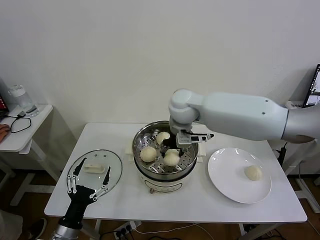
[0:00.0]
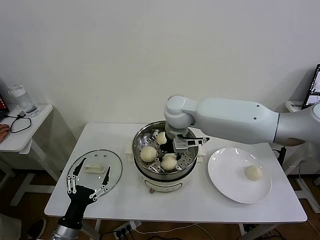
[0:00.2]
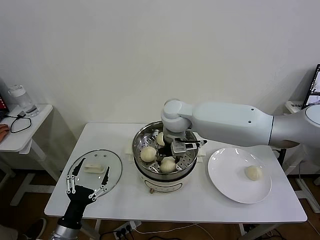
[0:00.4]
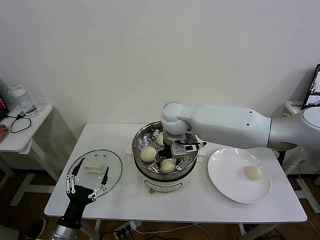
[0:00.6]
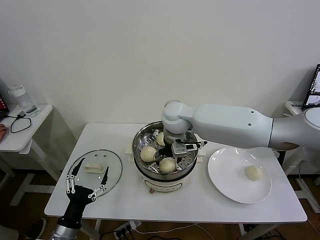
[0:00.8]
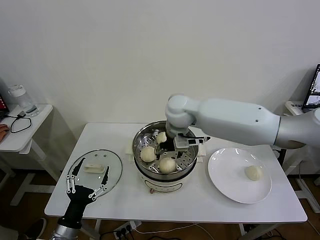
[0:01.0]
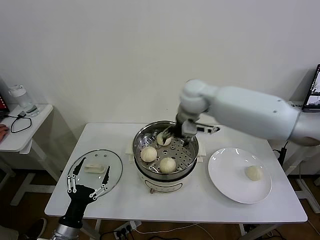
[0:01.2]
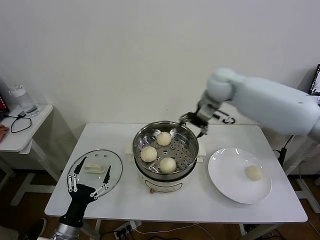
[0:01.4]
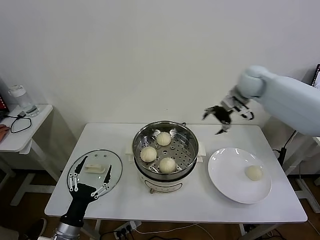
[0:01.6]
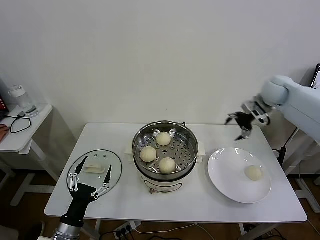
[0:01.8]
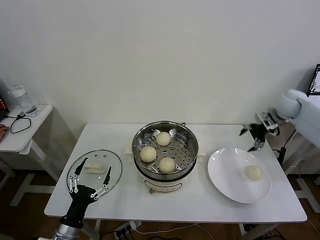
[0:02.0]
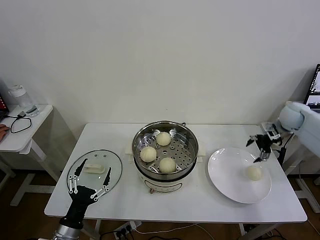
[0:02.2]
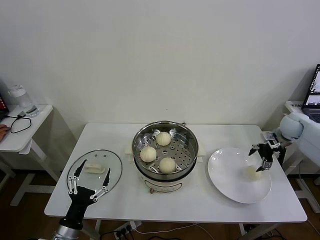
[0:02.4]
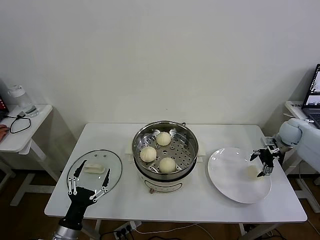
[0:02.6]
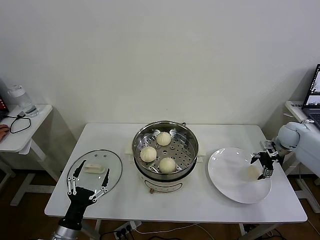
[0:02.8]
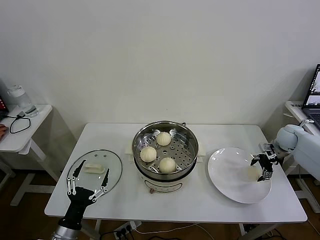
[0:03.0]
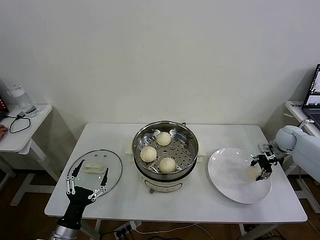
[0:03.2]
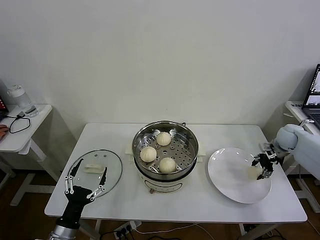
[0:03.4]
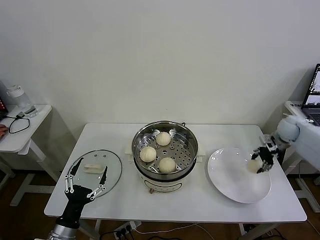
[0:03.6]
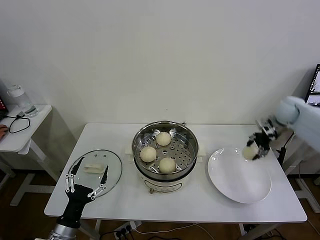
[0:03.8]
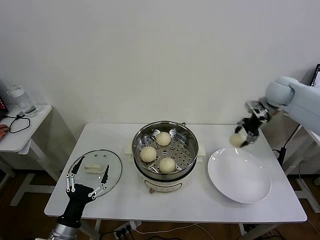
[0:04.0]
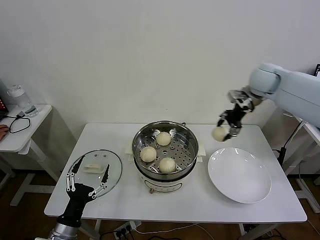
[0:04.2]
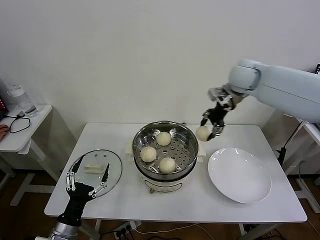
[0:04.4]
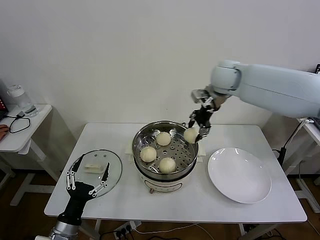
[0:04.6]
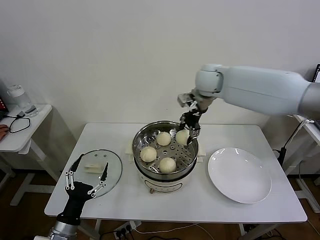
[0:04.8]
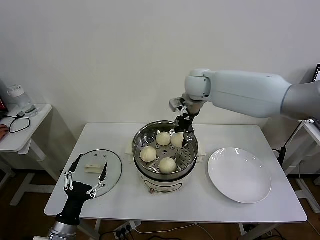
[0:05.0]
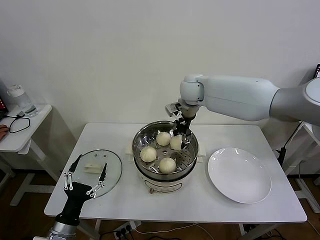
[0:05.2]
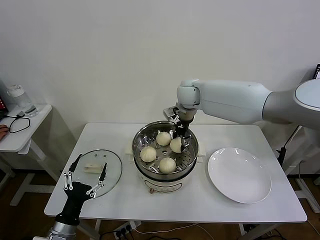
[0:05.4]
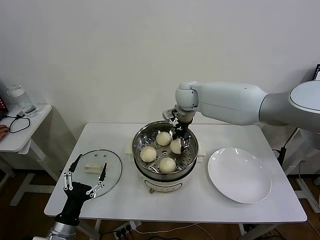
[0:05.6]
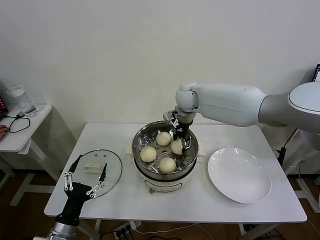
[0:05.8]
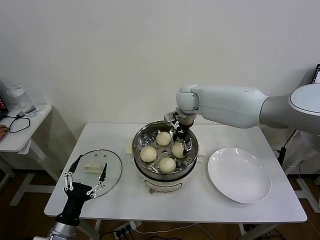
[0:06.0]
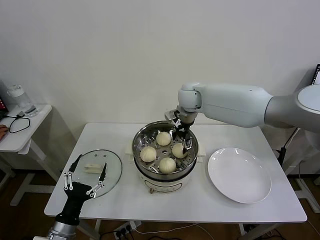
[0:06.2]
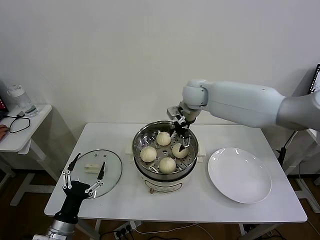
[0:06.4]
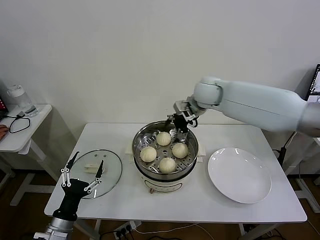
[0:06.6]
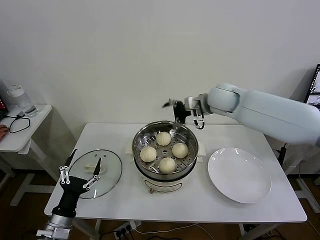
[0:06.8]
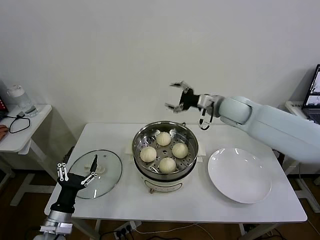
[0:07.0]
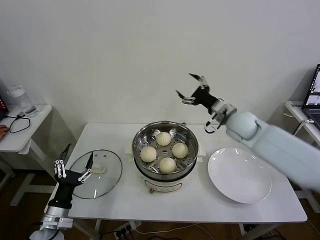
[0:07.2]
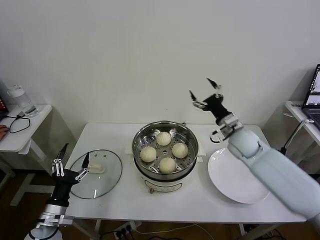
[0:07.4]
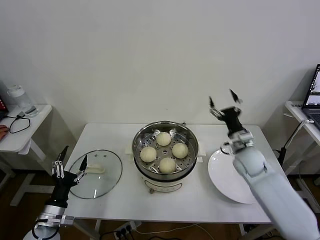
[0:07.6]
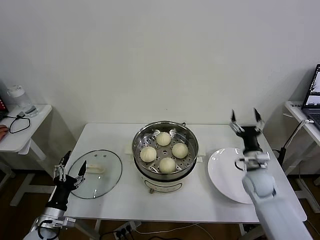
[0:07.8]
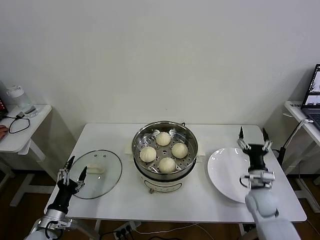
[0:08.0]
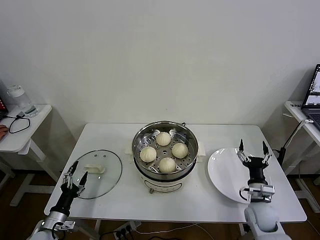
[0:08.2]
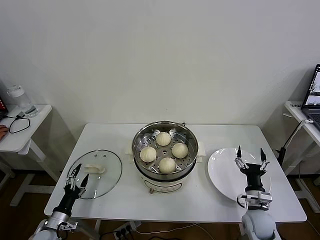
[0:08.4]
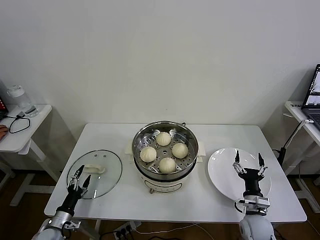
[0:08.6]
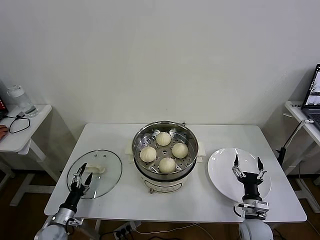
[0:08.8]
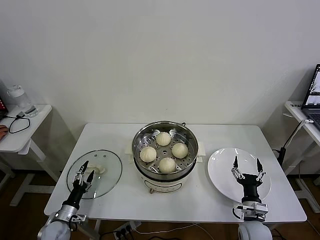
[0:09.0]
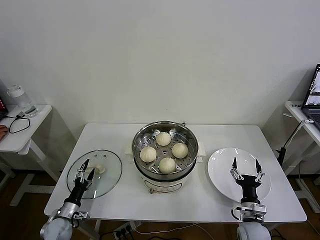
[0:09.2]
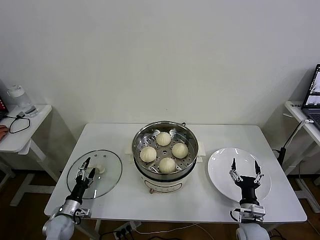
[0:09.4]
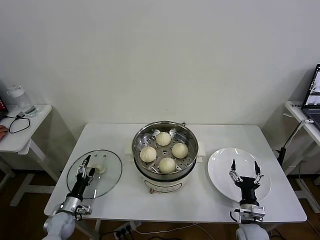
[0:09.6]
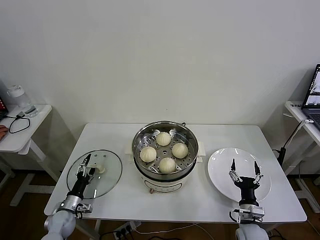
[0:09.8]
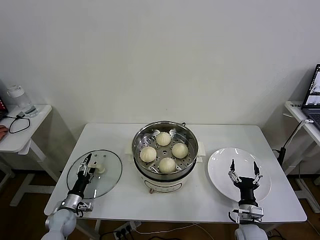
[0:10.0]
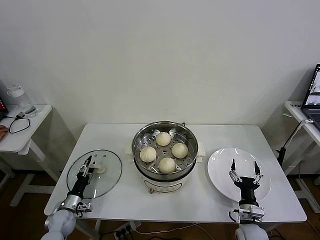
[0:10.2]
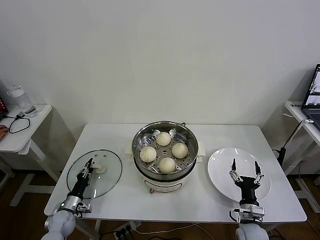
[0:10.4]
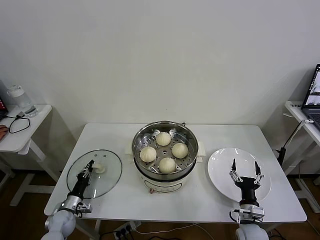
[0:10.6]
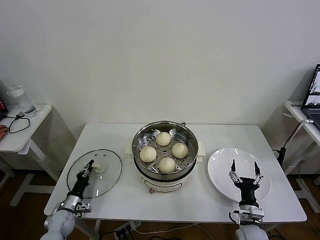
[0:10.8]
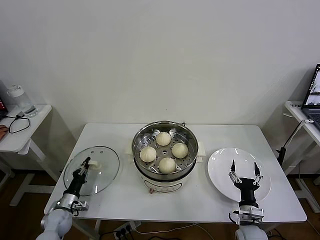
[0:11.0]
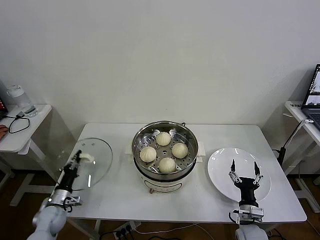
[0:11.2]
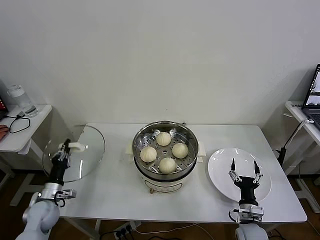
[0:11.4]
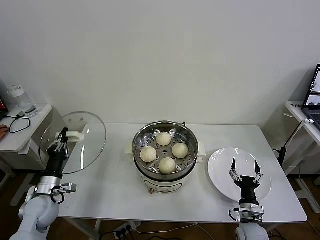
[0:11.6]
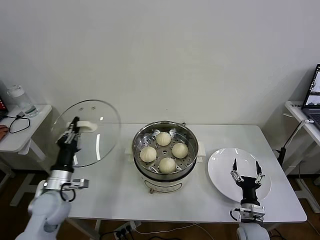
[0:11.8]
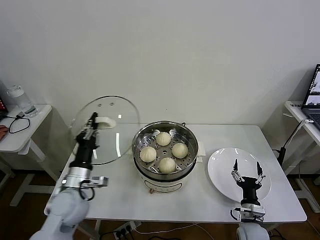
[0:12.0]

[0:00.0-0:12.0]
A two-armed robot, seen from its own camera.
Task of the whole recording: take steamed baozi put them in steamer then cover it.
Step, 0:01.0 to 0:03.2: Grasp the baozi in the plate with right gripper.
Step, 0:03.6 to 0:06.0: Place the baozi on the steamer with right gripper.
Step, 0:06.2 to 0:10.8: Grasp the pot lid with left gripper.
0:00.0 to 0:01.6: The right gripper goes roughly 25 cm to the right, and opens.
0:01.6 to 0:03.0: The right gripper moves downward and to the right, some 25 cm.
0:03.0 to 0:04.4: The right gripper heads to the left and upward, covering roughly 35 cm, and closes up.
0:04.4 to 0:06.0: The right gripper moves to the left and downward, approximately 15 cm, and opens.
0:06.0 to 0:07.6: The left gripper travels to the left by approximately 5 cm. The right gripper goes approximately 30 cm to the right, downward and backward.
0:07.6 to 0:09.0: The right gripper goes some 25 cm backward and downward. The left gripper moves downward, some 15 cm.
0:09.0 to 0:10.4: The left gripper moves some 5 cm, and closes.
0:10.4 to 0:12.0: The left gripper travels upward and to the right by roughly 25 cm, and closes its fingers.

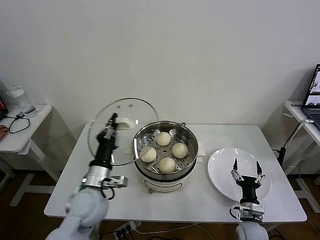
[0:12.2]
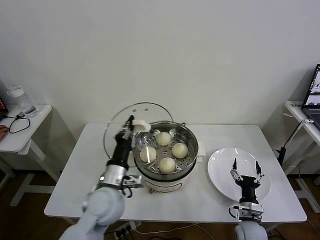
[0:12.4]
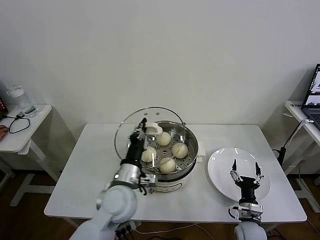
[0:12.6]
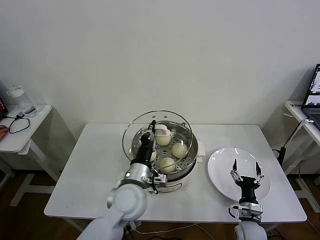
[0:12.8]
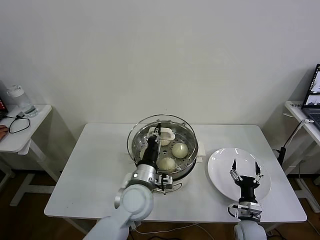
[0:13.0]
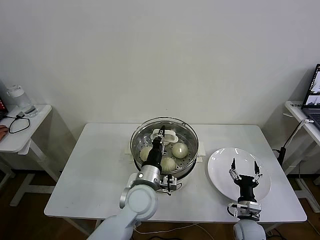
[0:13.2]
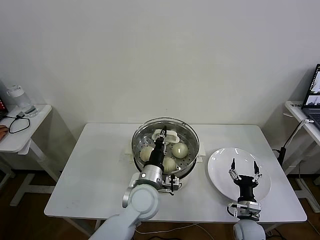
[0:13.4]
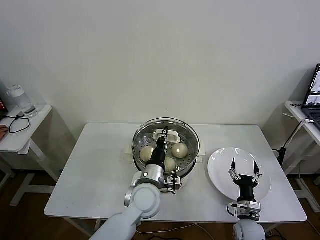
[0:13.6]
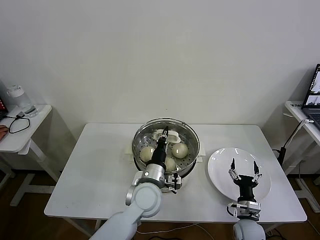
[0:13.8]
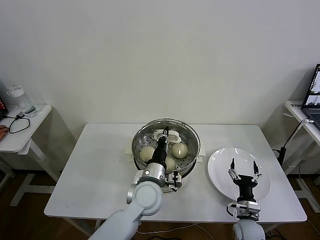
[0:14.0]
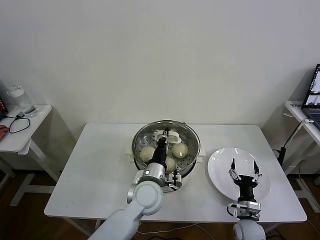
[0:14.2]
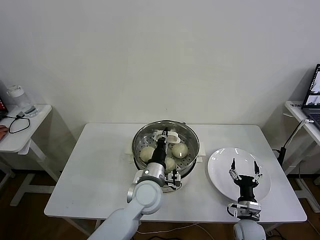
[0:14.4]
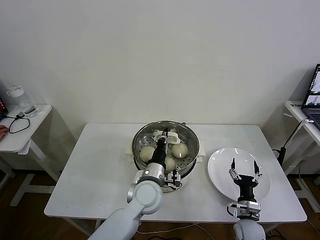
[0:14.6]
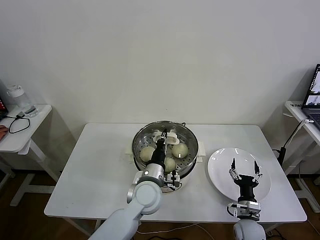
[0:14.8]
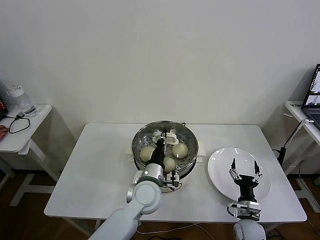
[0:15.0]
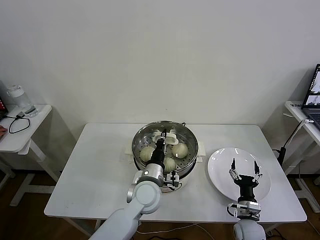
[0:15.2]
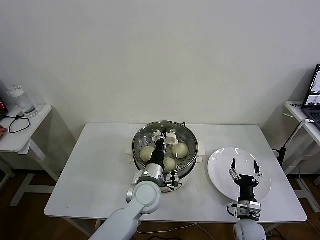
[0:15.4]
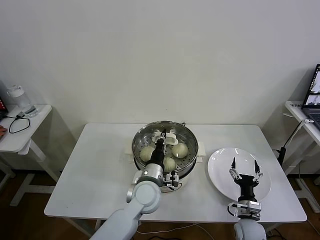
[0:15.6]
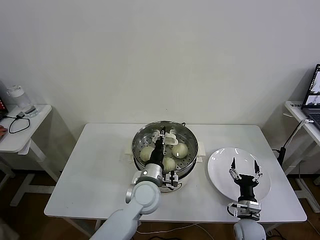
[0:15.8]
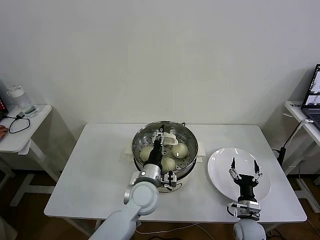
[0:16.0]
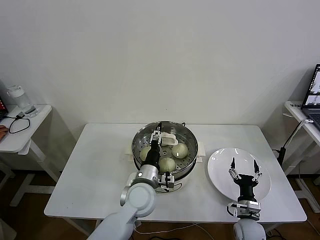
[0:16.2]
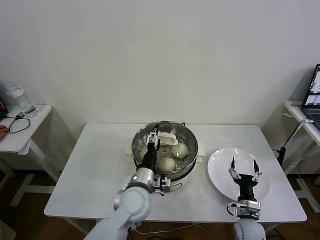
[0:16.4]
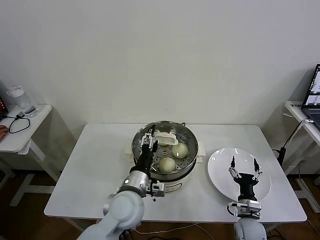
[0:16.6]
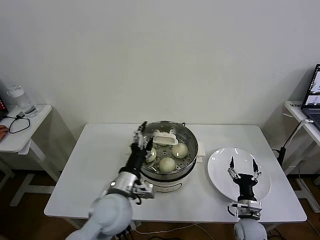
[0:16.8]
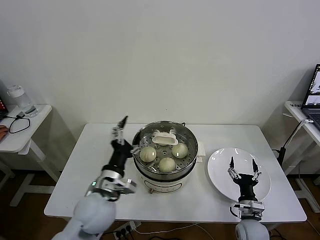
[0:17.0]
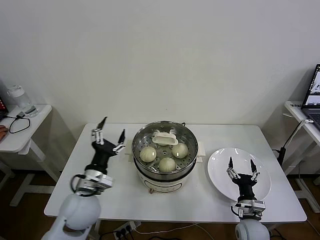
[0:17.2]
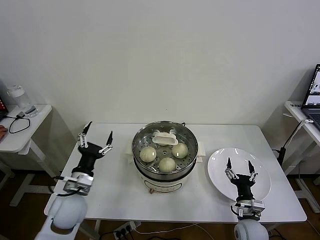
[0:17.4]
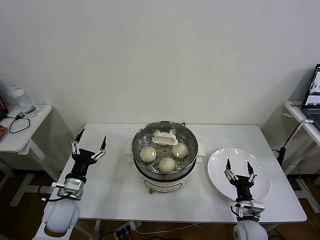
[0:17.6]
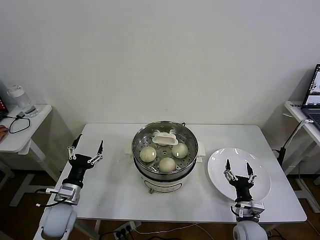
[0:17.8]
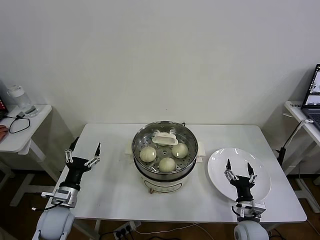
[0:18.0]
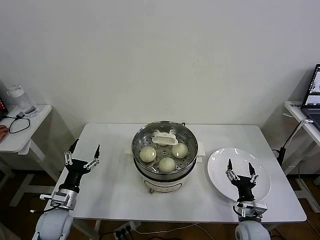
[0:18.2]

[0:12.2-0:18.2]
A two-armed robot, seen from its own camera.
Task of the whole recording: take steamed baozi put them in steamer then cover it.
Step, 0:12.2 to 0:16.2: Place the pot lid on the steamer with left gripper.
0:12.2 to 0:13.8: The left gripper moves to the right, some 15 cm.
0:13.8 to 0:15.2: The grippers move only a little.
0:15.2 to 0:16.6: The left gripper changes place by some 5 cm, and opens its fingers.
0:16.6 to 0:18.2: The left gripper shifts approximately 25 cm to the left.
